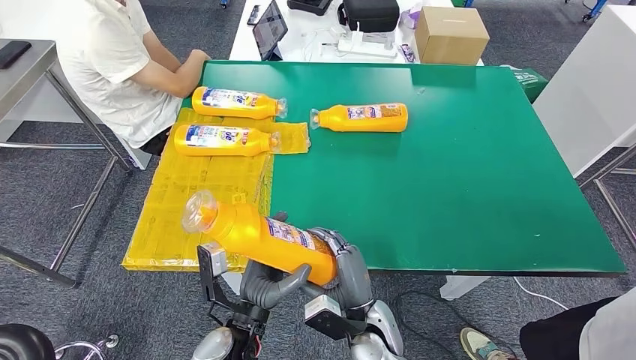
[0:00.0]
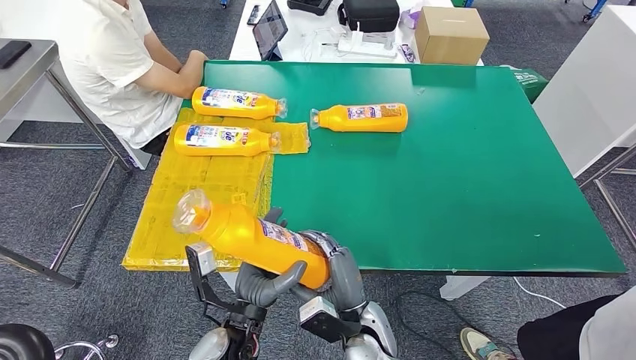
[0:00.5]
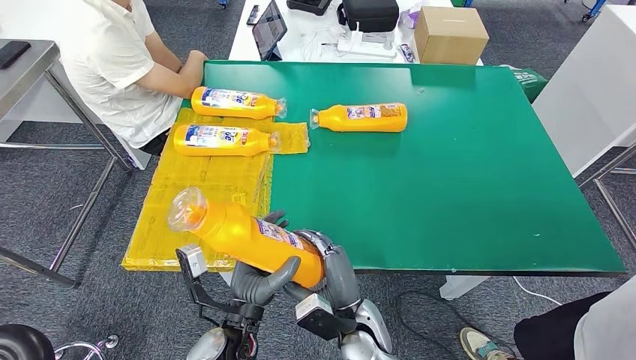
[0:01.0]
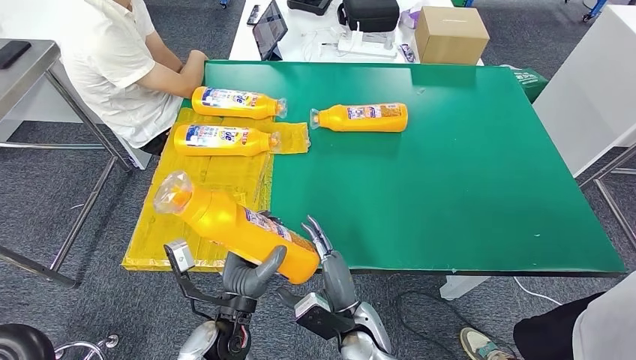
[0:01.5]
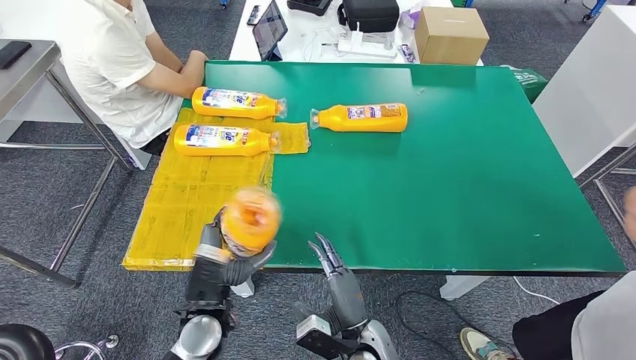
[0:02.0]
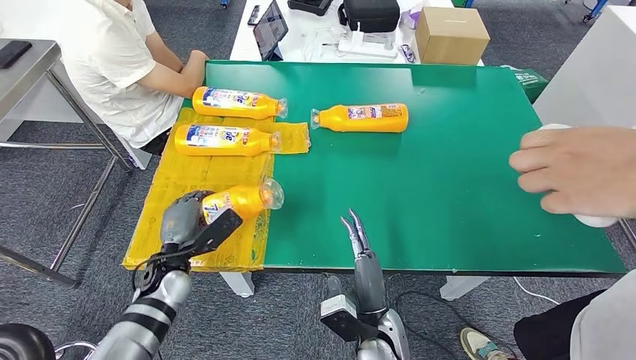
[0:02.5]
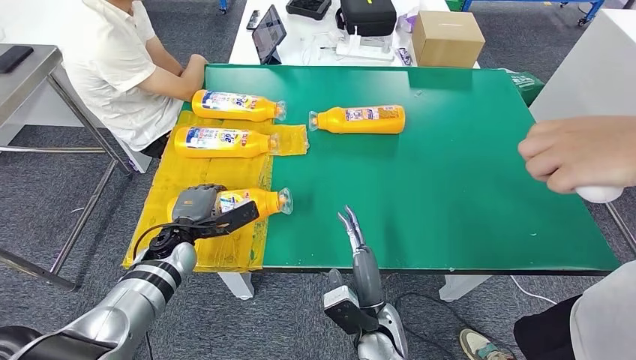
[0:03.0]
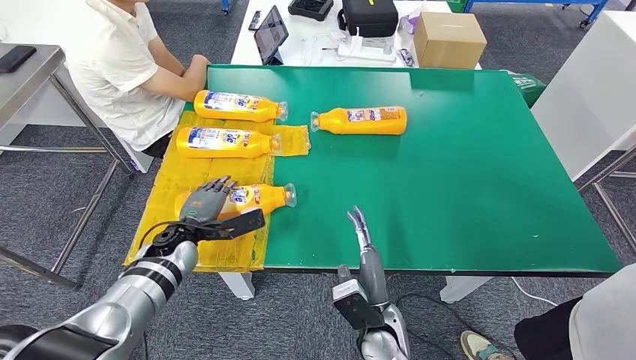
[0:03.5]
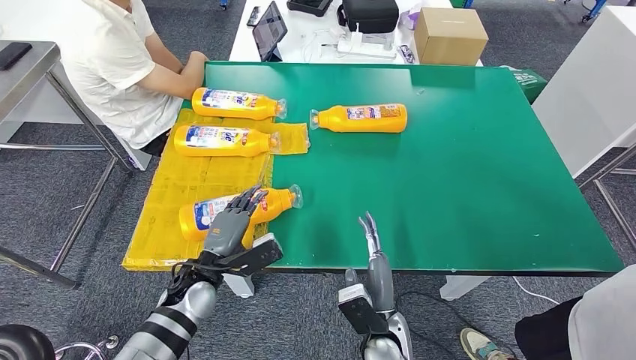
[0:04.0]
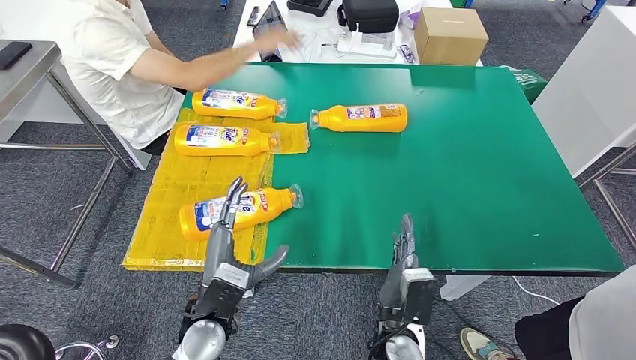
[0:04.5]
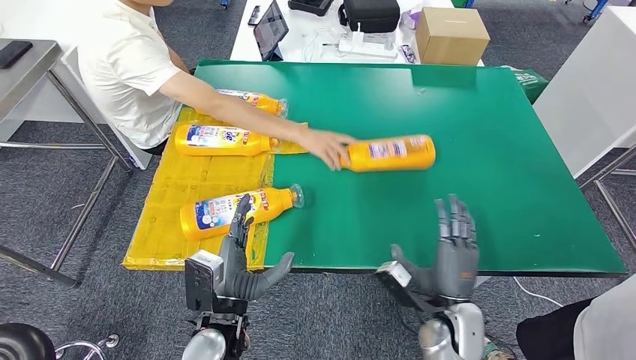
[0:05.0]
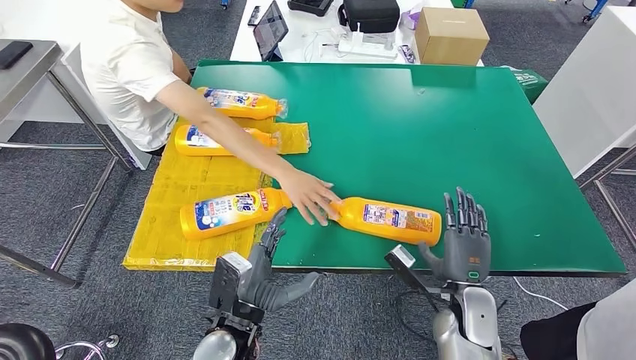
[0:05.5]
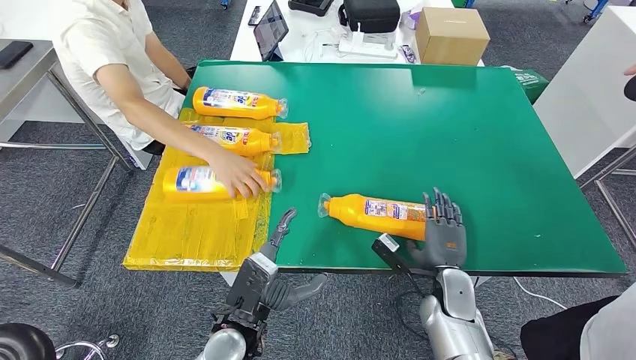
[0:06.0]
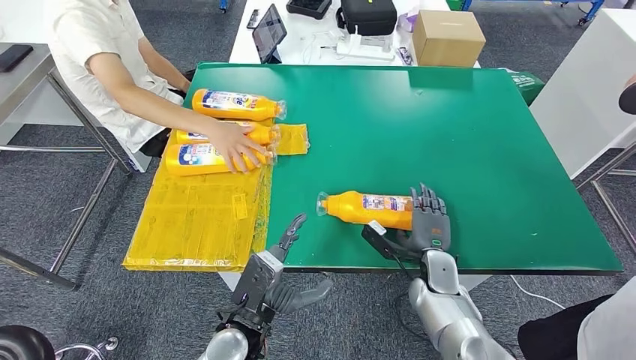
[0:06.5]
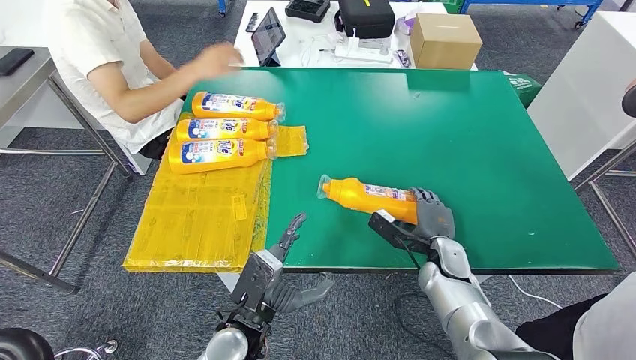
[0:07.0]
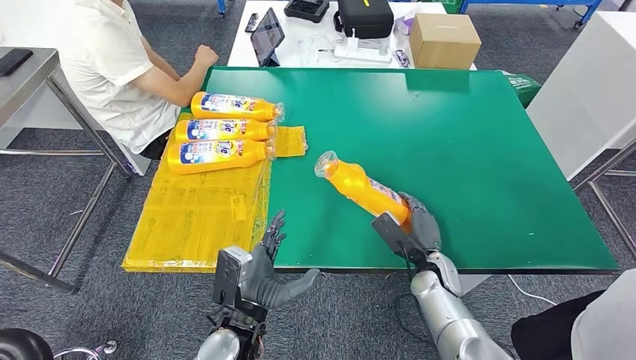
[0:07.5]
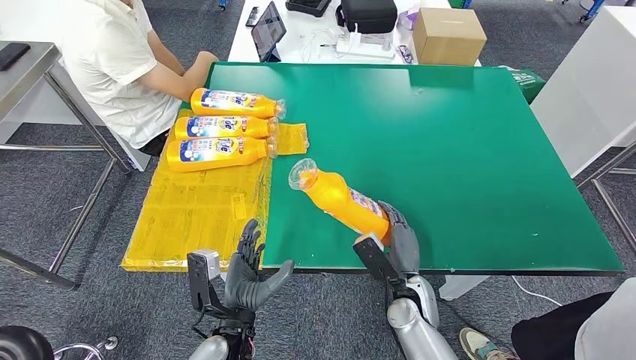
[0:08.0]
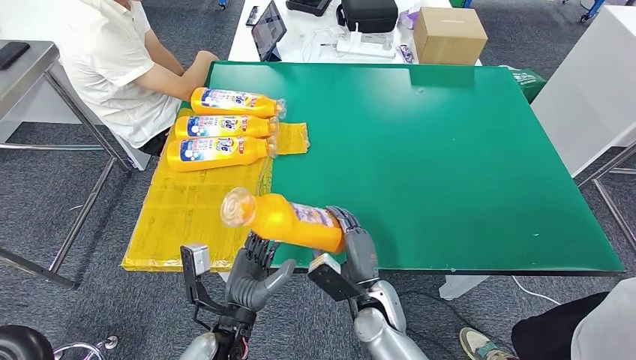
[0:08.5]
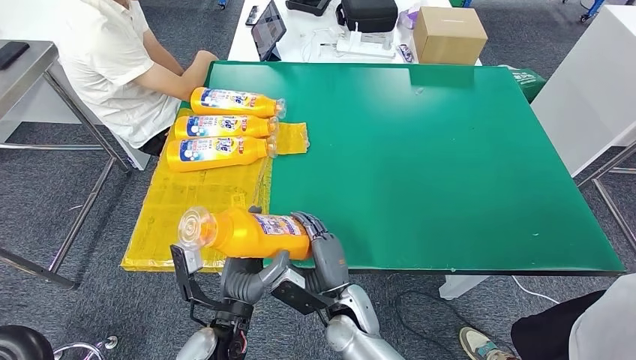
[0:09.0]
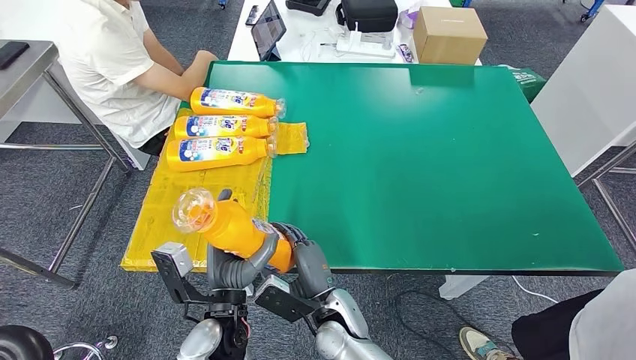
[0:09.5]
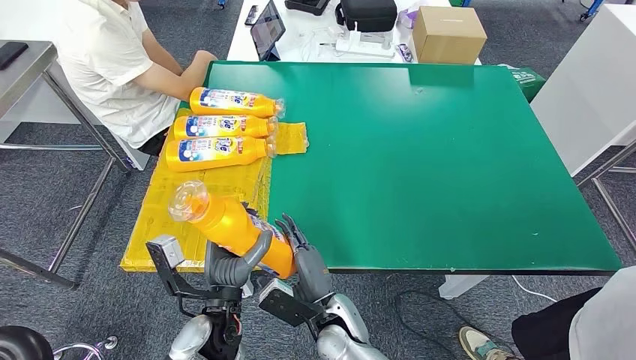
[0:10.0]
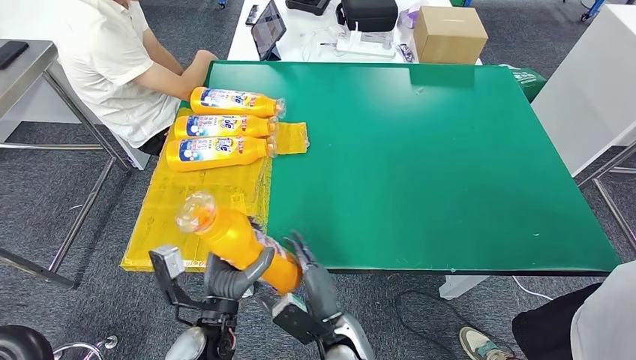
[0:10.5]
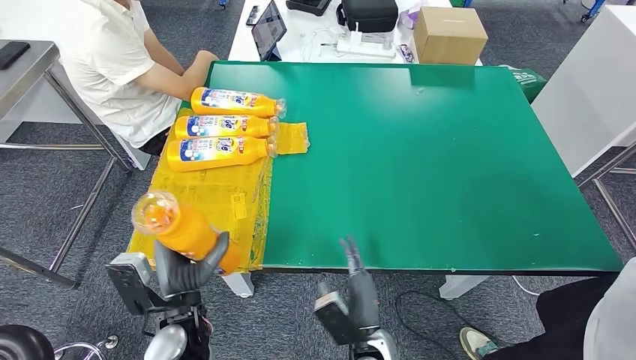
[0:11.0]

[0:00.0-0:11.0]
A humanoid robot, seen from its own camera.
Step, 0:00.0 to 0:03.5: Flip the fast-moving consumer goods bottle to the front side.
Step, 0:04.0 to 0:09.5: Pick up the fast-moving consumer goods bottle from the table.
0:00.0 to 0:02.0: The left hand goes approximately 5 cm to the left.
0:09.0 to 0:11.0: The right hand shifts some 5 cm backward. Meanwhile the left hand travels to the left by roughly 5 cm.

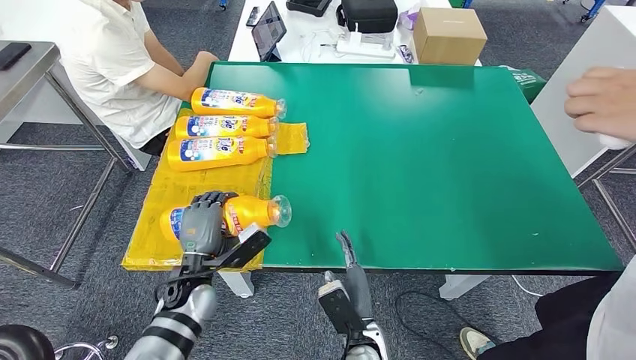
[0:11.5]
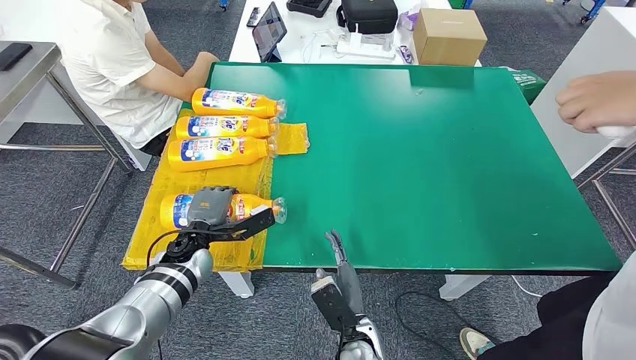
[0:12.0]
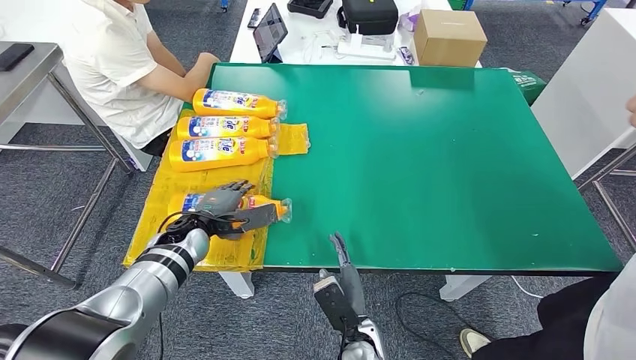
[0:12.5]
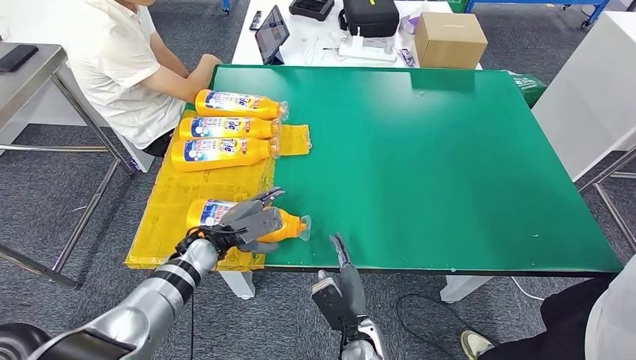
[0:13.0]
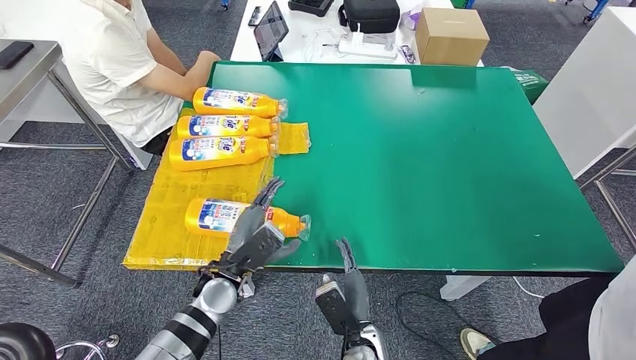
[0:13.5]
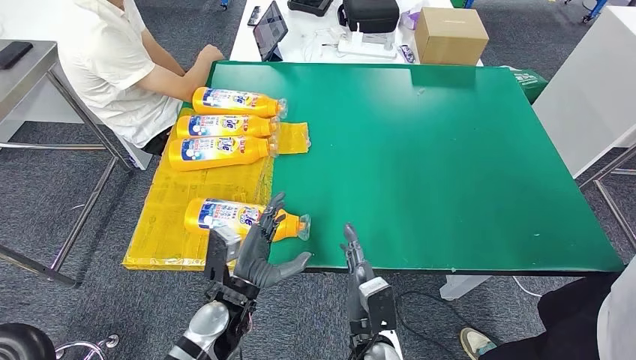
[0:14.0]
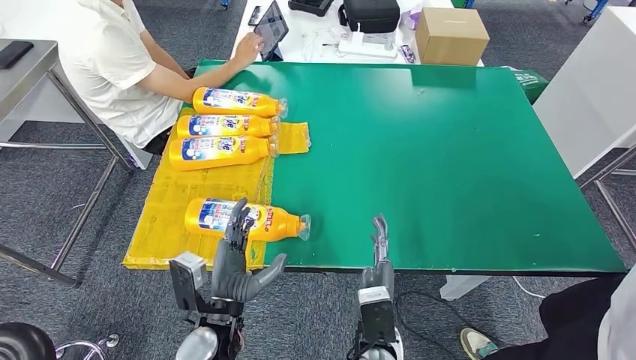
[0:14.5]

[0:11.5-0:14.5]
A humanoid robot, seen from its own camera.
Step, 0:11.5 to 0:14.0: Flip the fast-moving consumer goods bottle to the front side.
